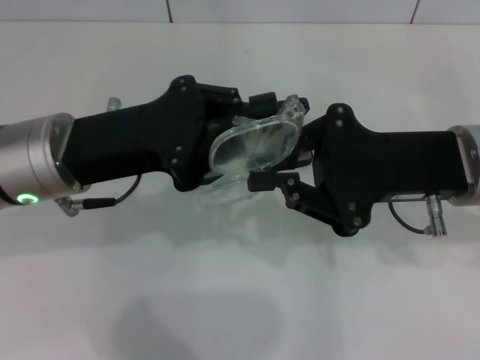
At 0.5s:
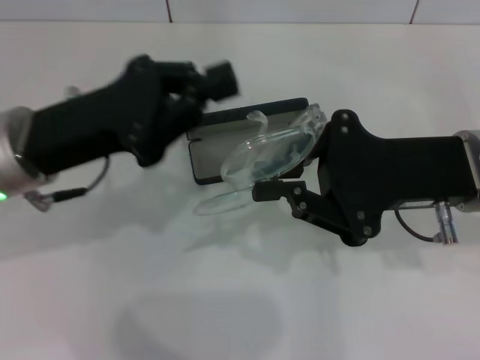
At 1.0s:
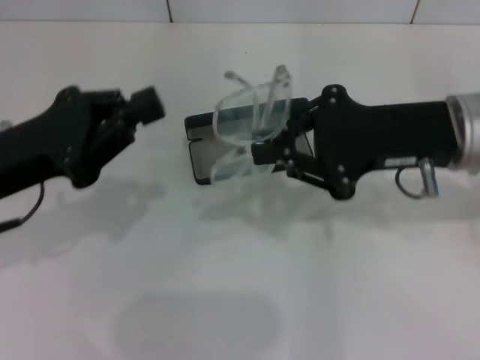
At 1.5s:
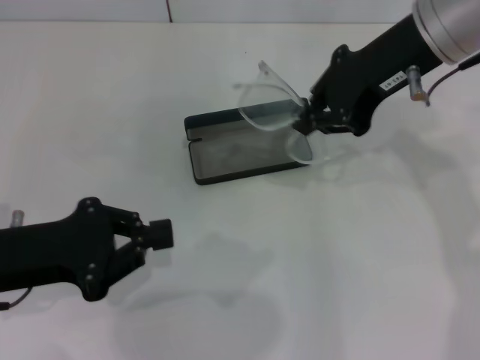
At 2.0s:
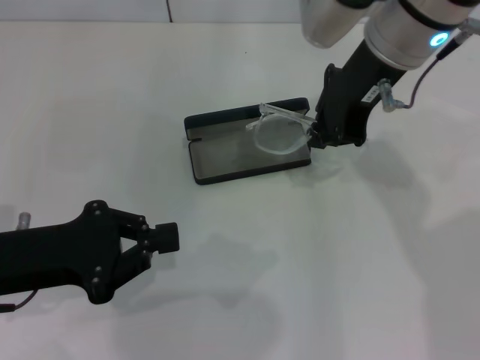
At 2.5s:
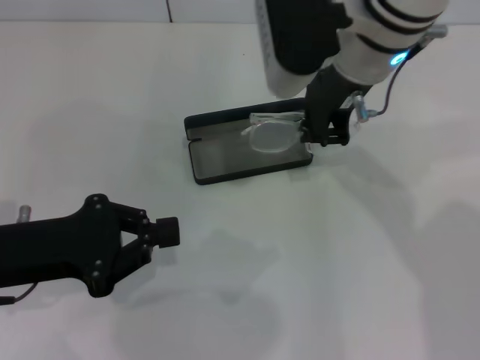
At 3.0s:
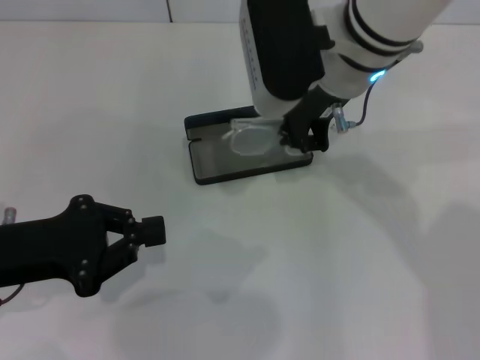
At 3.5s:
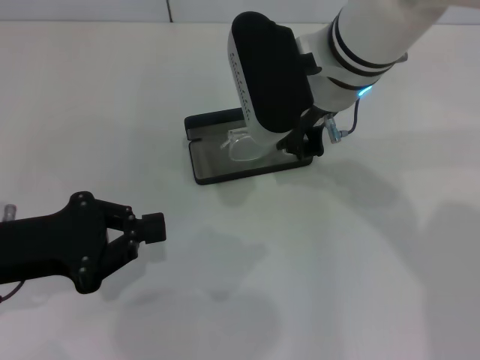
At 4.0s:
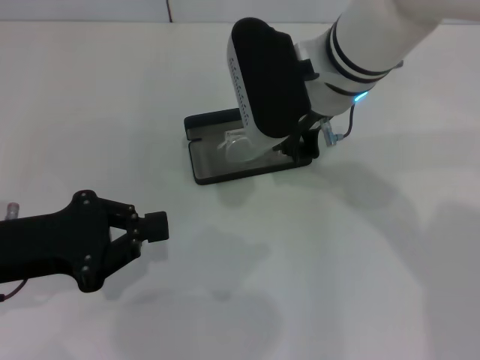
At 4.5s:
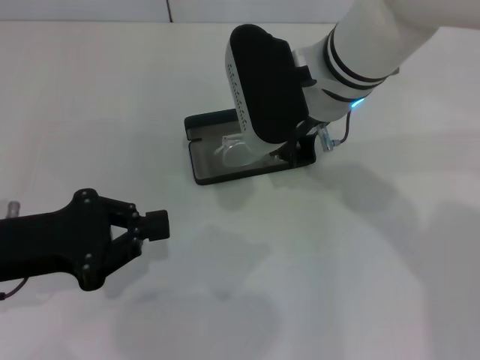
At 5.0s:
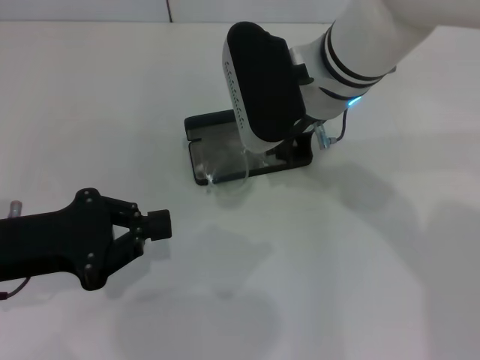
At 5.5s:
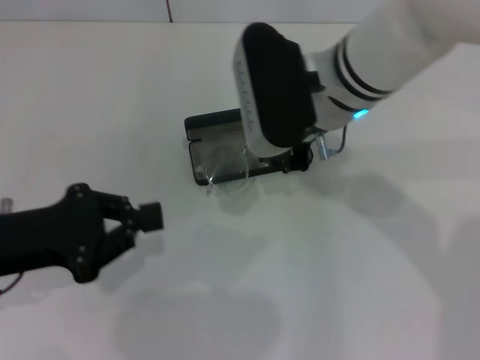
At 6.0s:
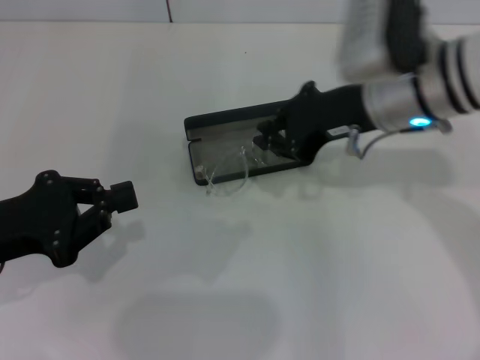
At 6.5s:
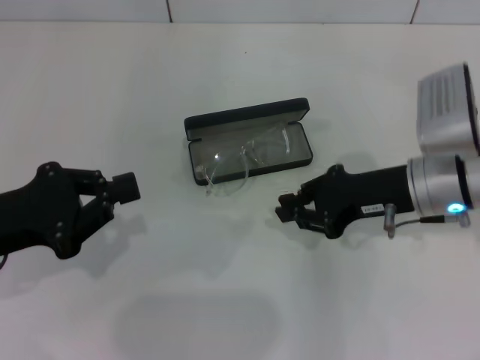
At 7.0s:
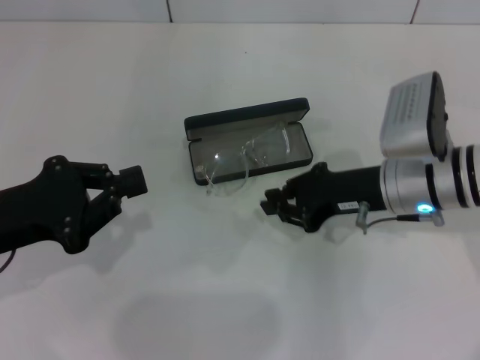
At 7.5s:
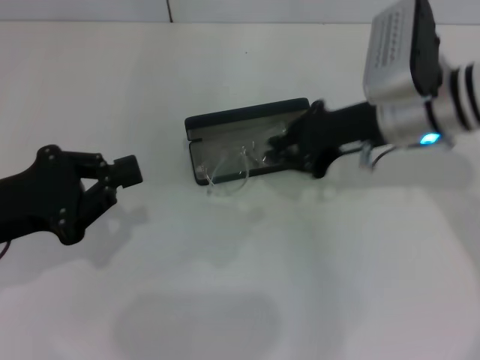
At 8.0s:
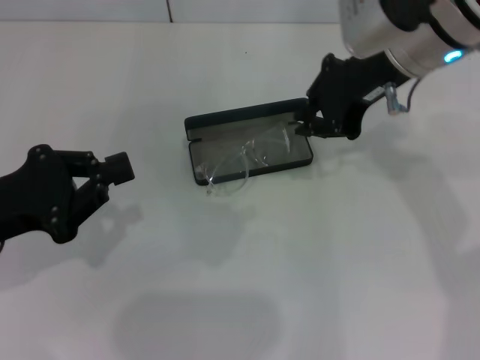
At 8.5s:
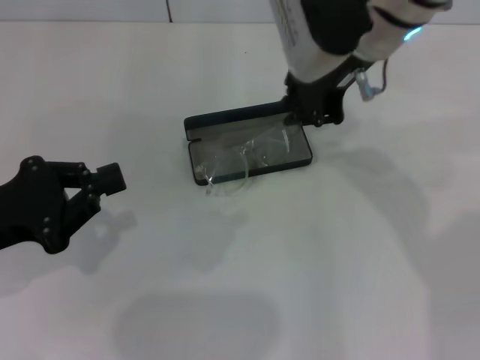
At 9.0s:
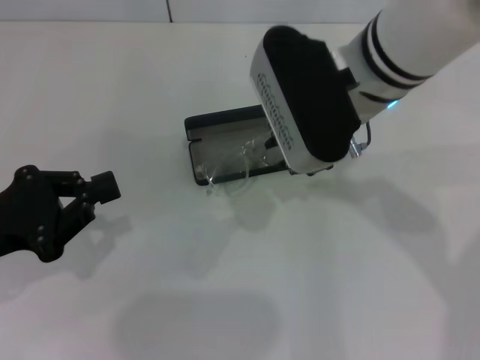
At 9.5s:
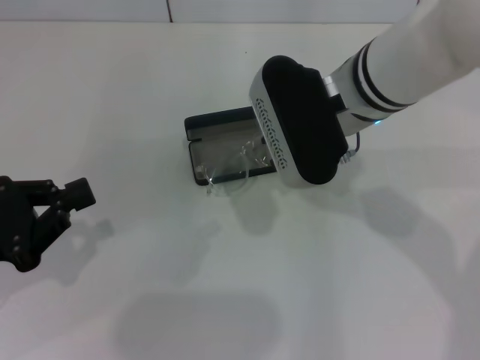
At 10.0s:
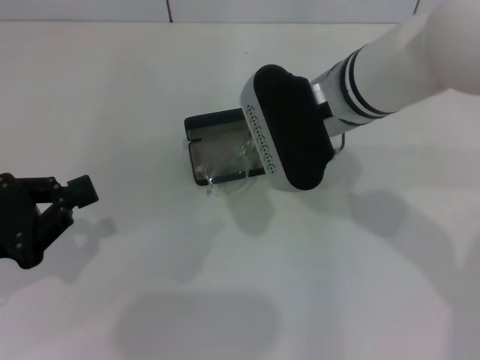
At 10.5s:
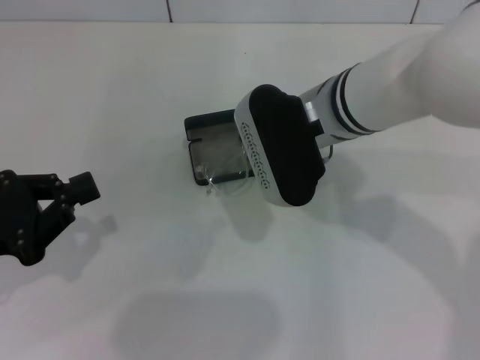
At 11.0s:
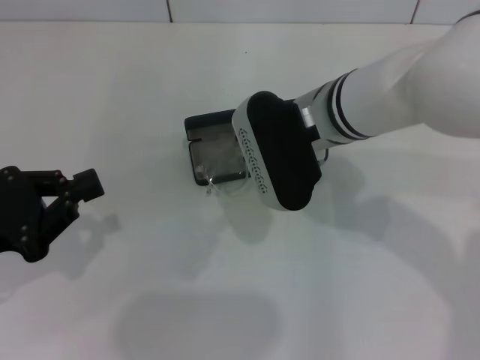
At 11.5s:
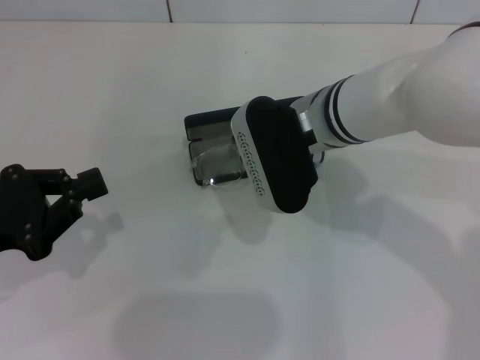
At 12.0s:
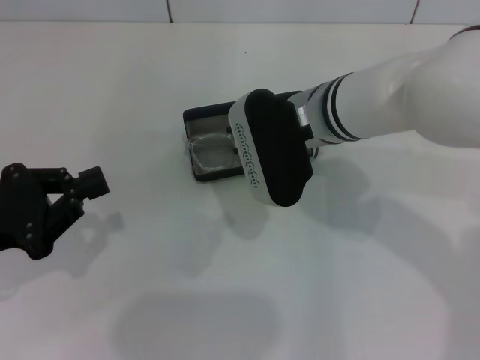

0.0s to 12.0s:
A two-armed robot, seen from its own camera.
0.0s to 2.0s: The right gripper is displaced forward, upward and to the left by about 15 cm, while the left gripper is displaced to the left and backward by approximately 10 cm.
2.0s to 4.0s: The right gripper moves downward and to the left, about 10 cm.
4.0s to 6.0s: The right gripper heads to the right, covering some 10 cm.
6.0s to 8.0s: The right gripper is displaced upward by about 5 cm.
8.0s to 10.0s: The right gripper travels downward and to the left by some 10 cm.
10.0s to 12.0s: The grippers move only a little.

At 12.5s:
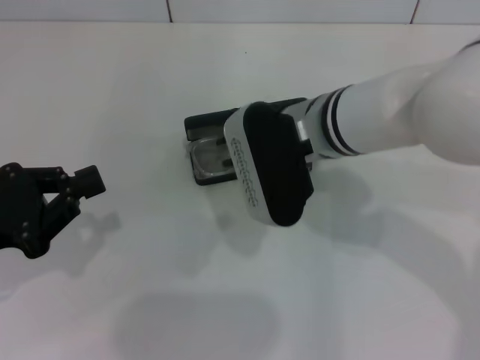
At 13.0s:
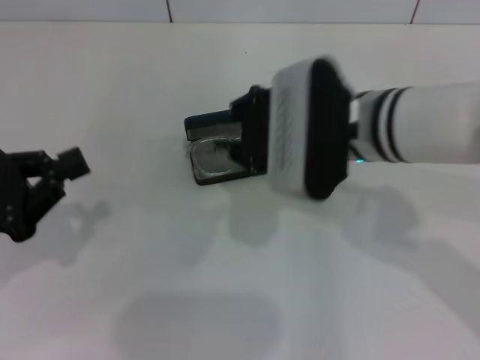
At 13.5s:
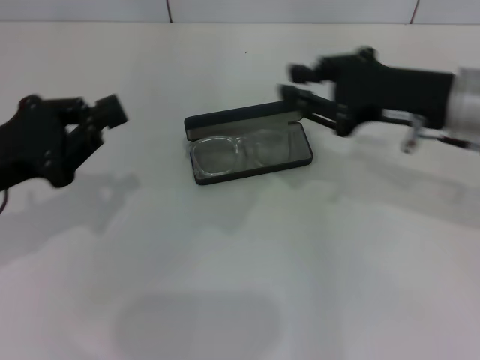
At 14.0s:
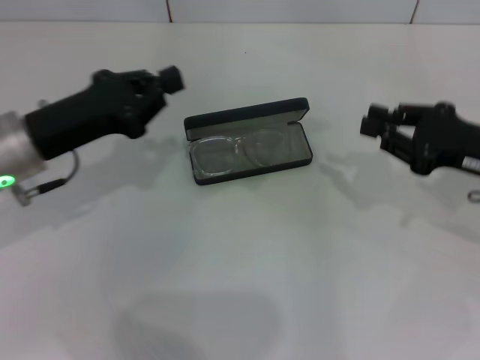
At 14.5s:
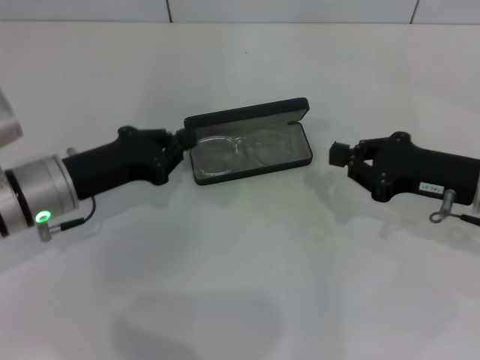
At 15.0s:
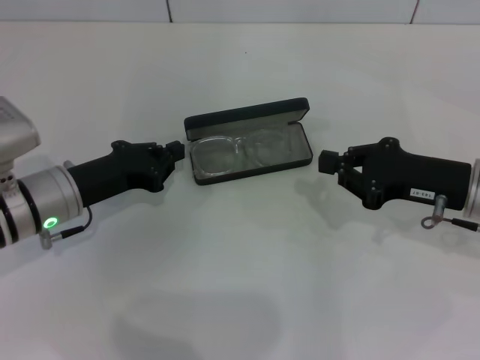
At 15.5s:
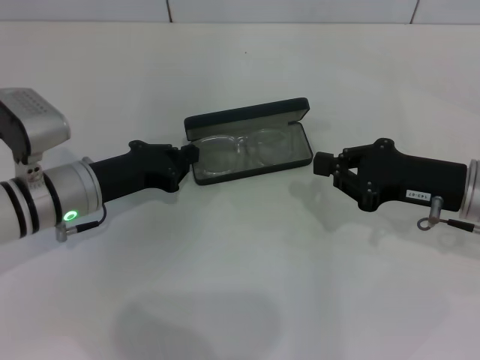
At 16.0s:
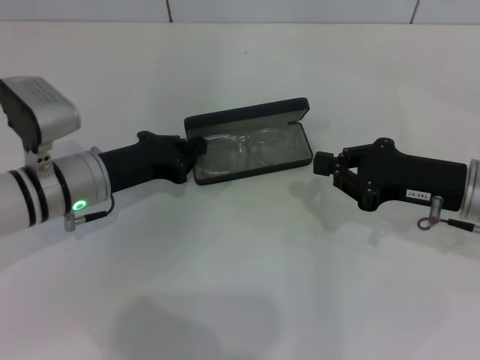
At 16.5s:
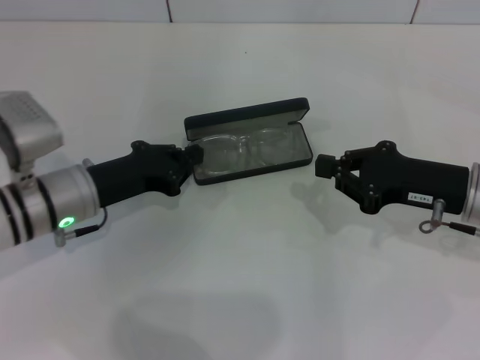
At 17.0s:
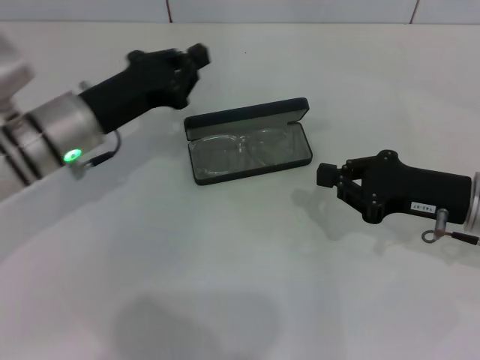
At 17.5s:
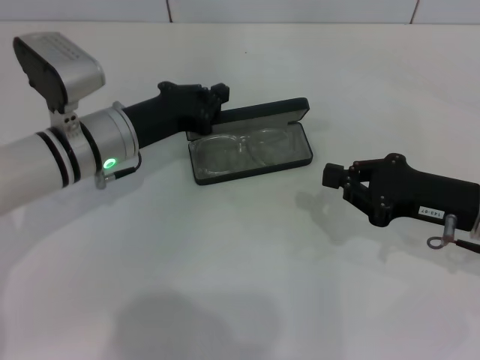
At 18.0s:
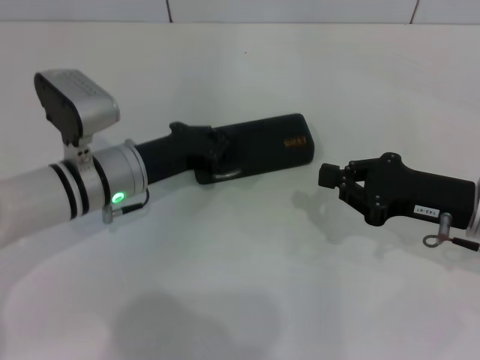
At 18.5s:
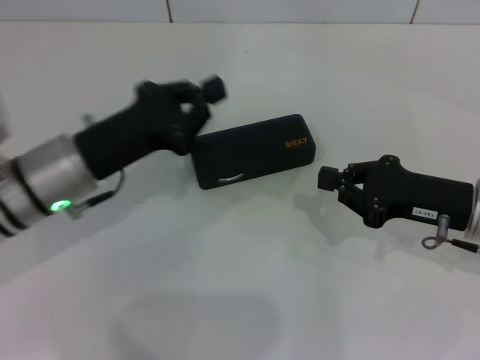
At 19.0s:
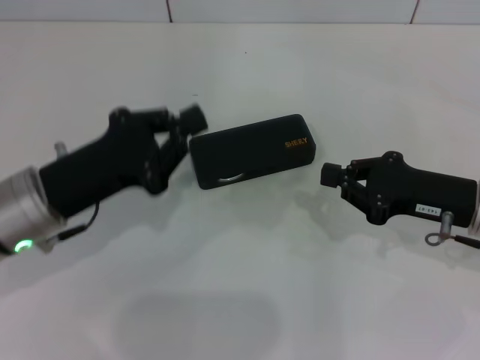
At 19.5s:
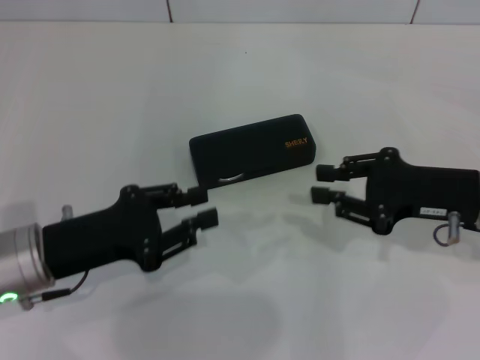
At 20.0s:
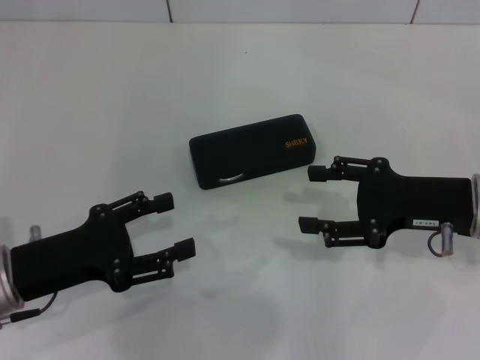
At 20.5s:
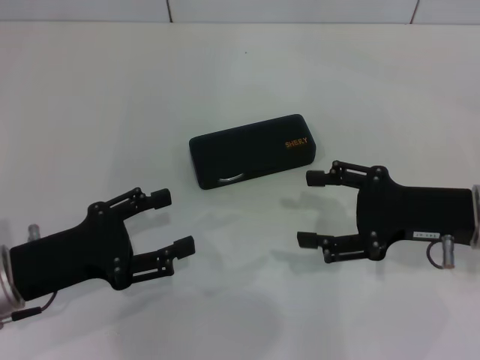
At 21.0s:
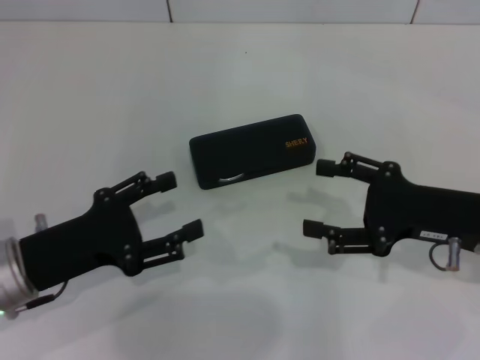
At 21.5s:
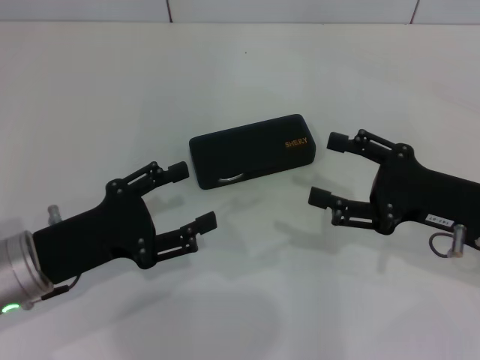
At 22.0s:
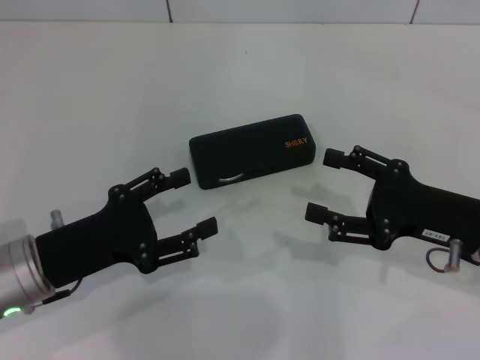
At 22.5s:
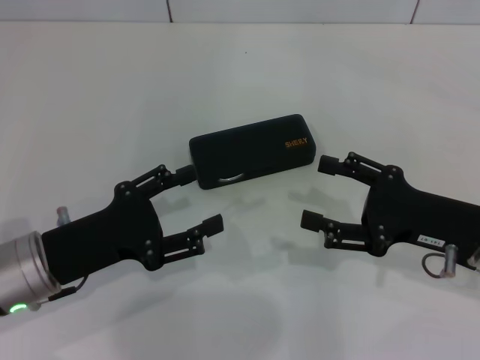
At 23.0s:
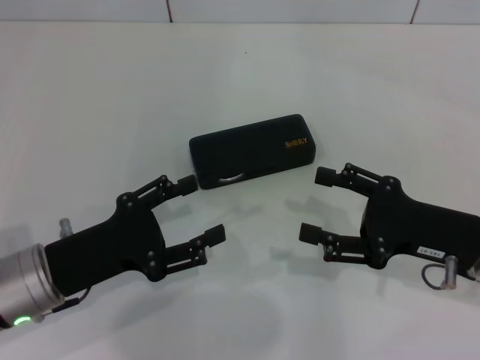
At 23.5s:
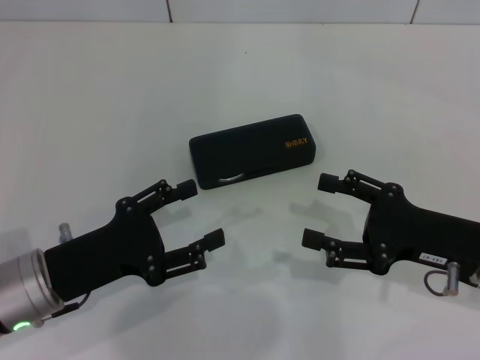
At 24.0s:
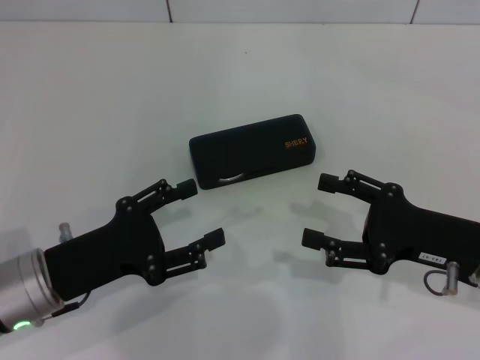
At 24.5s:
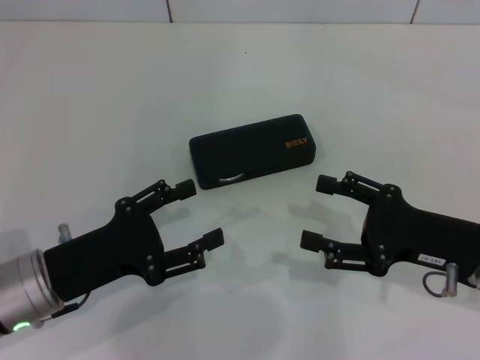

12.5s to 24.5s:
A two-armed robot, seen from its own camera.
Step, 12.5s to 18.0s: Close the glasses case with your left hand.
12.5s to 14.5s: The left gripper heads forward, to the right and downward, covering roughly 15 cm. Meanwhile the right gripper heads to the right, covering some 20 cm.
14.5s to 16.5s: The grippers stay close to where they were, moving slightly.
16.5s to 18.5s: The left gripper shifts by some 5 cm.
18.5s to 20.5s: The right gripper opens up, while the left gripper heads backward and to the left, covering about 10 cm, and opens.
20.5s to 24.5s: The grippers move only a little.

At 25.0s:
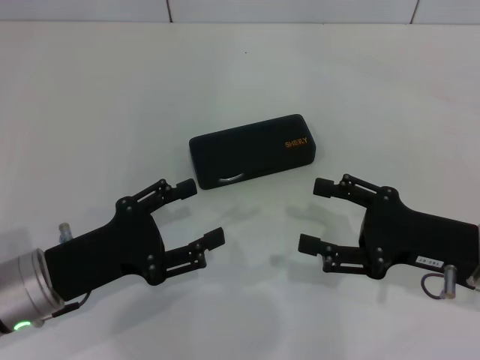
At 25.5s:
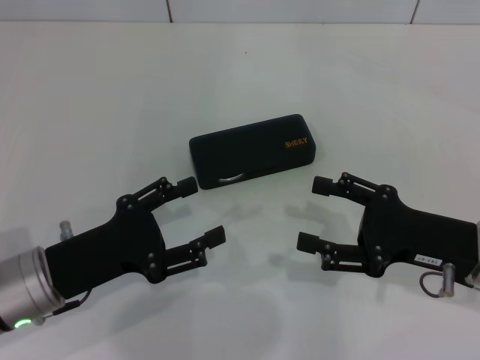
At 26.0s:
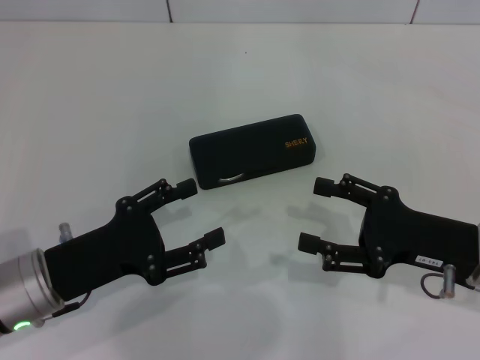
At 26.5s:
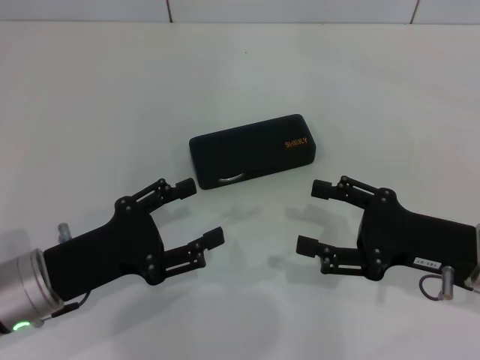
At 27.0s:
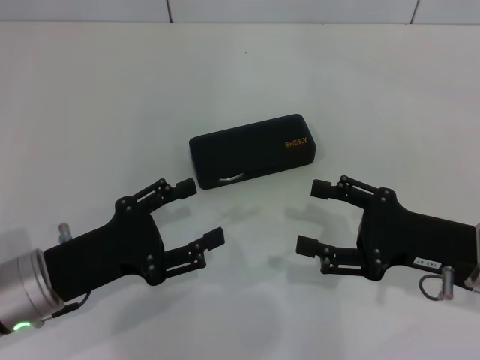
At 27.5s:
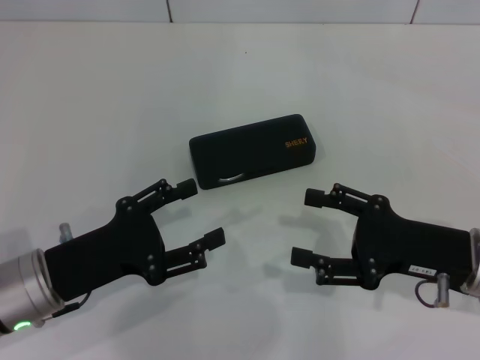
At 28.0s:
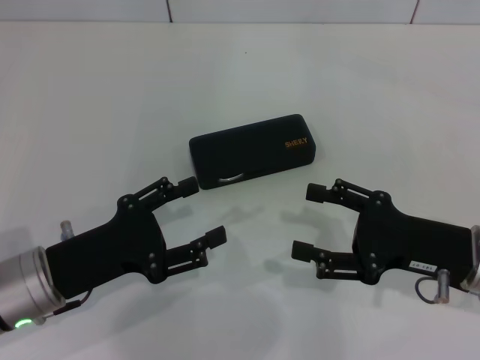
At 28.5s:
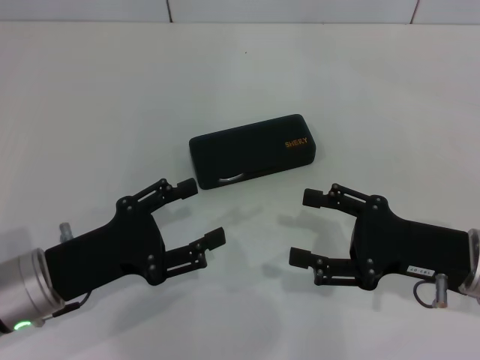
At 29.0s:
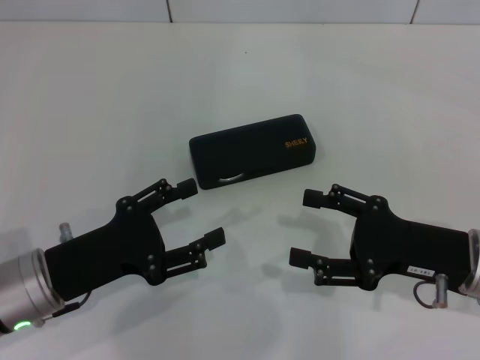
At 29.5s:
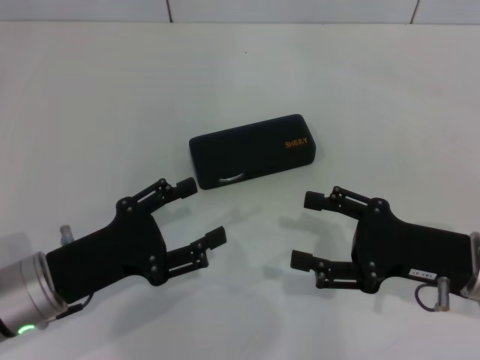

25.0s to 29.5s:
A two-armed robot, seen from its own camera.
25.0s to 29.5s: The two grippers keep their place.
